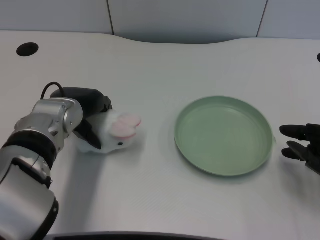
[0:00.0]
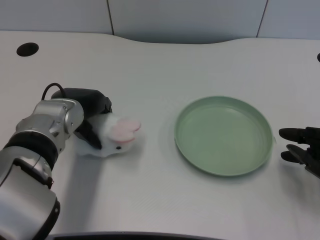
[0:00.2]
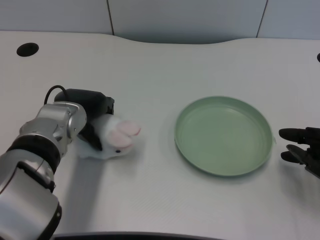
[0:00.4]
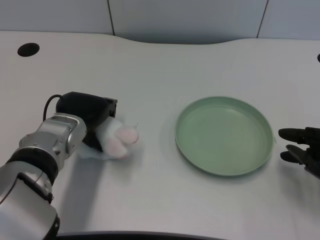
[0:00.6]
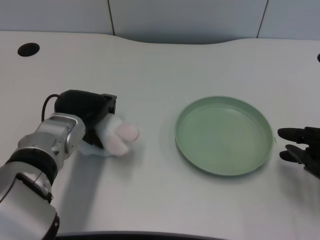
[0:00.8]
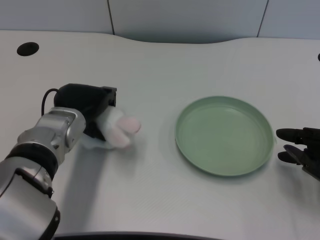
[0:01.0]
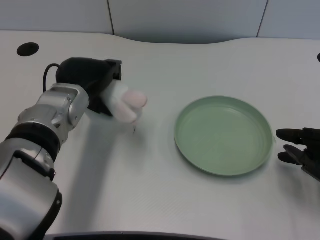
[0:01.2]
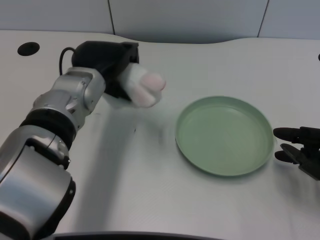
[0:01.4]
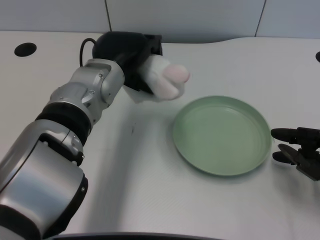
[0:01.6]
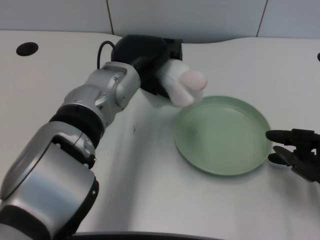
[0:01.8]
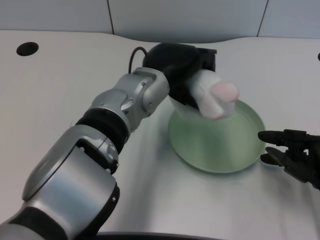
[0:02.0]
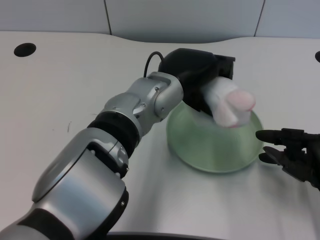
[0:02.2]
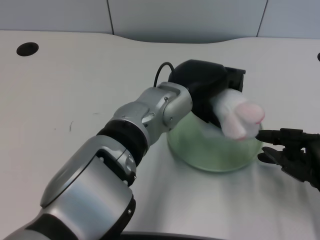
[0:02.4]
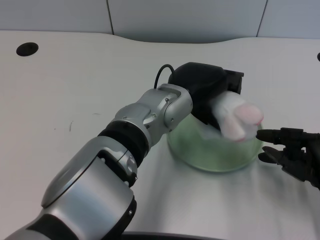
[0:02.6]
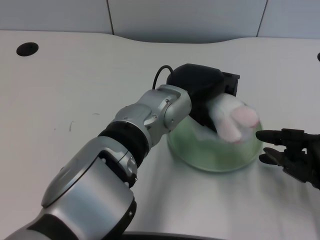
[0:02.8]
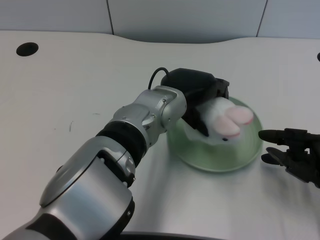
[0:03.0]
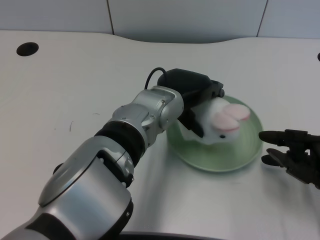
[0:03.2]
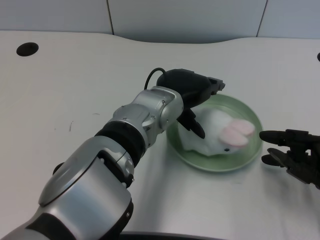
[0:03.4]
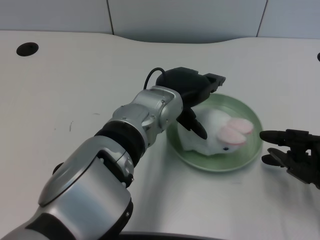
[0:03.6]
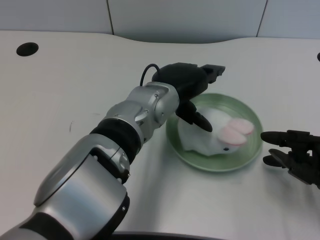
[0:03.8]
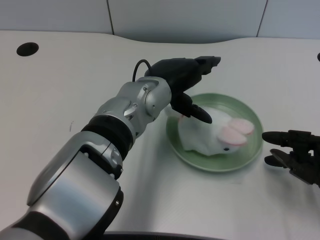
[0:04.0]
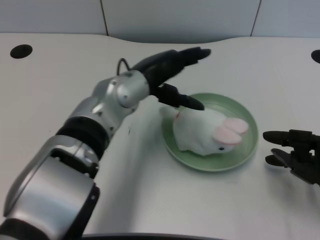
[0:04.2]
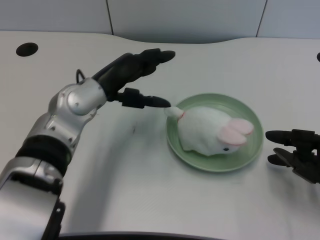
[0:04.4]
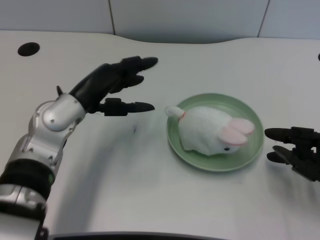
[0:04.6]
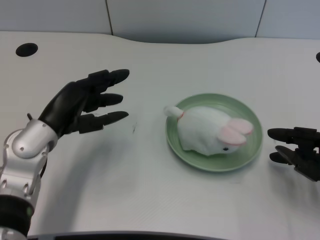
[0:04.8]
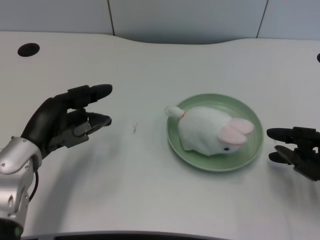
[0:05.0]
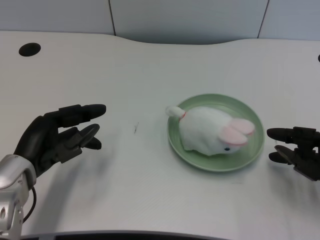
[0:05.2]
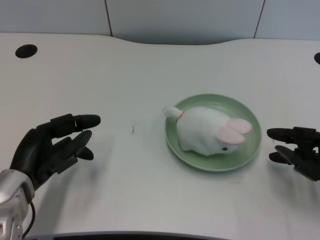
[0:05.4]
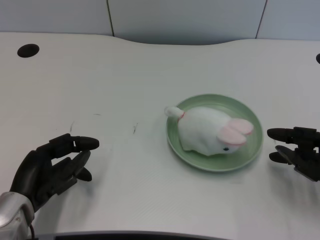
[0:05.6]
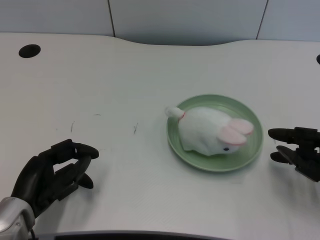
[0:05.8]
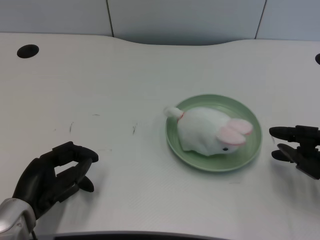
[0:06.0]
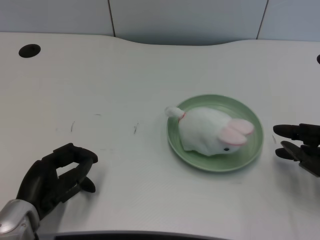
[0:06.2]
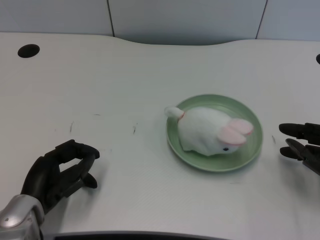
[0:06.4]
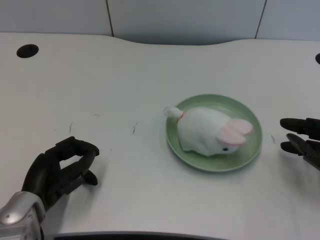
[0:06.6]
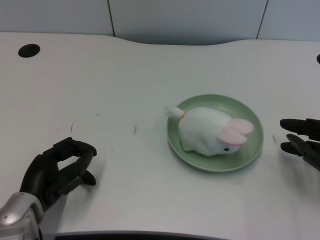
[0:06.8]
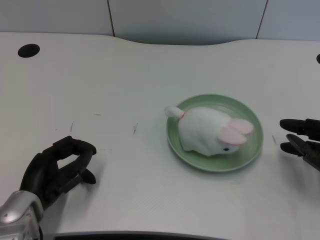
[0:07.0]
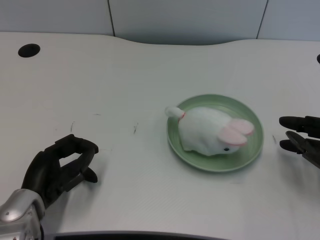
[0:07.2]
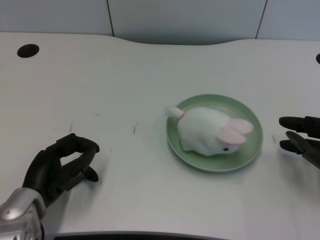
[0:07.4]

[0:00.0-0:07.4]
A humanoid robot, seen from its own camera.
Task of the whole recording: pick up the rabbit doll from the table and place it on the plate.
Step, 0:01.2 to 0:03.2: Place the rabbit doll into the plate with the left gripper.
0:00.0 to 0:01.4: The left hand changes place by approximately 5 cm.
0:01.4 to 0:03.0: The left hand moves to the right, roughly 10 cm.
0:03.0 to 0:04.4: The left hand goes some 10 cm to the left.
0:04.4 to 0:06.0: The left hand goes some 20 cm backward, to the left and downward.
0:06.0 to 0:07.4: There are only small adjustments of the hands.
